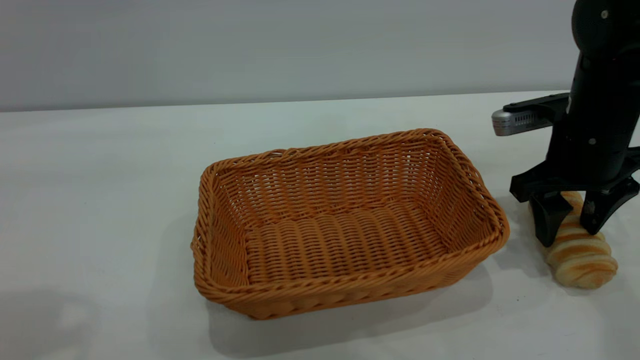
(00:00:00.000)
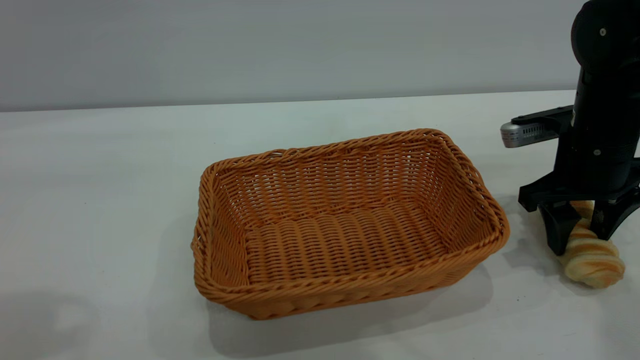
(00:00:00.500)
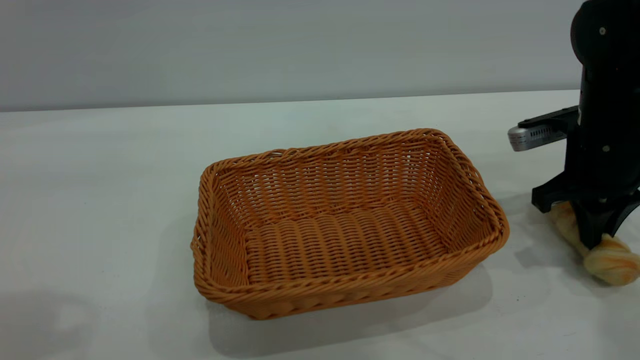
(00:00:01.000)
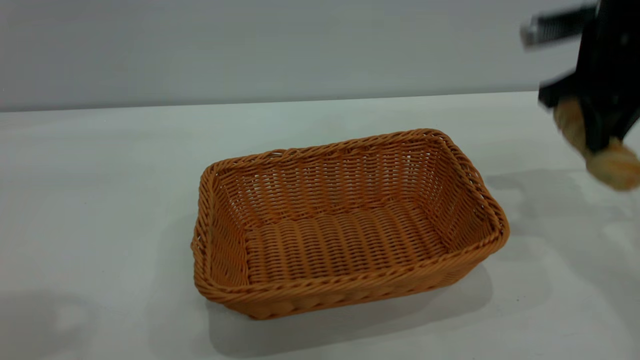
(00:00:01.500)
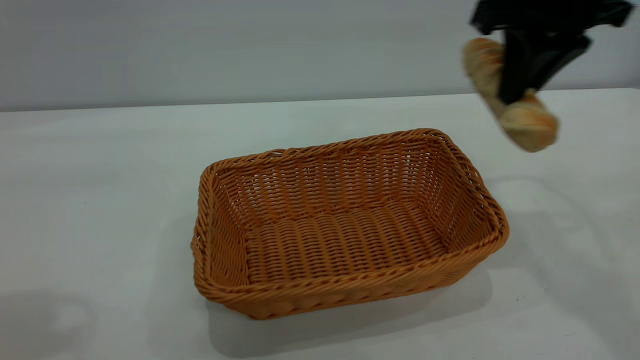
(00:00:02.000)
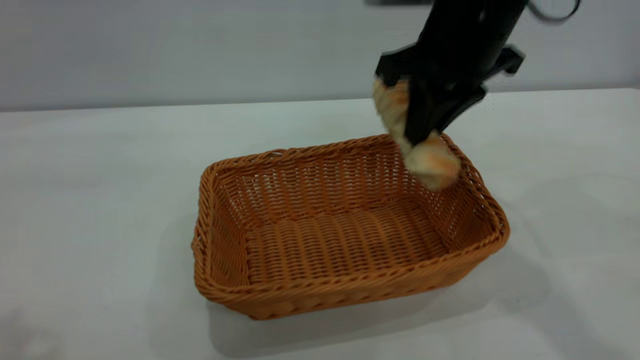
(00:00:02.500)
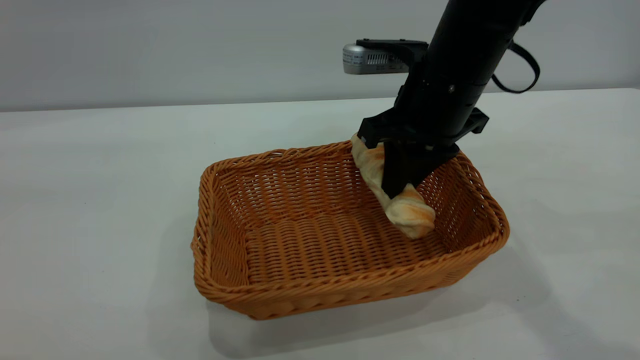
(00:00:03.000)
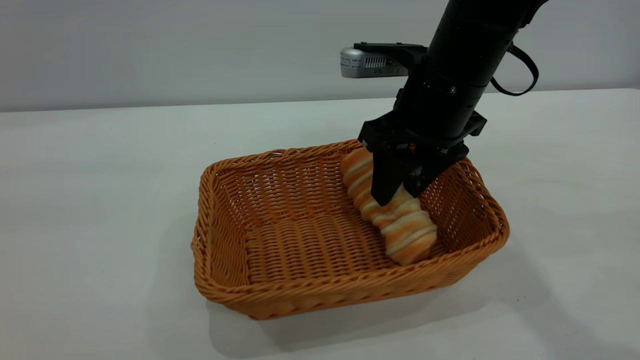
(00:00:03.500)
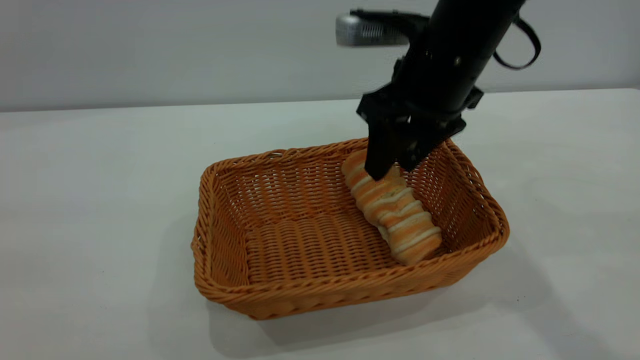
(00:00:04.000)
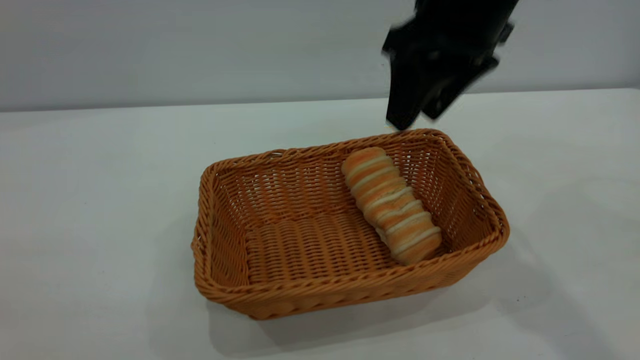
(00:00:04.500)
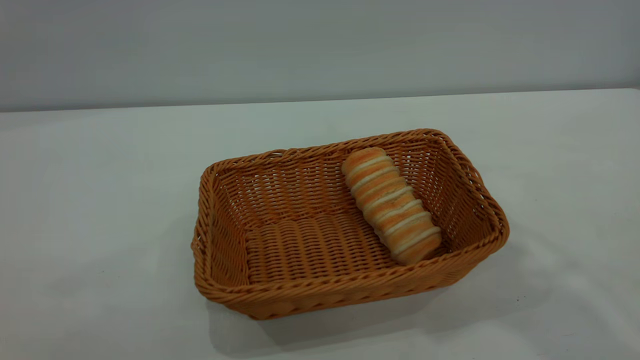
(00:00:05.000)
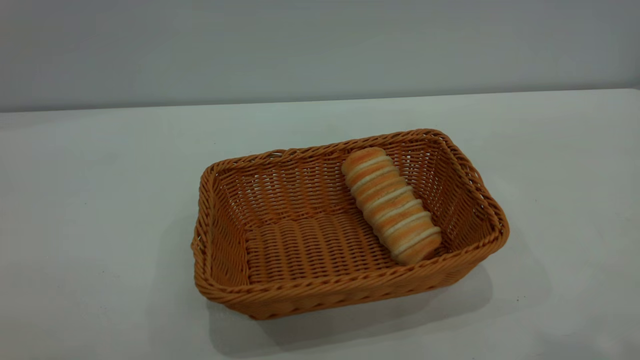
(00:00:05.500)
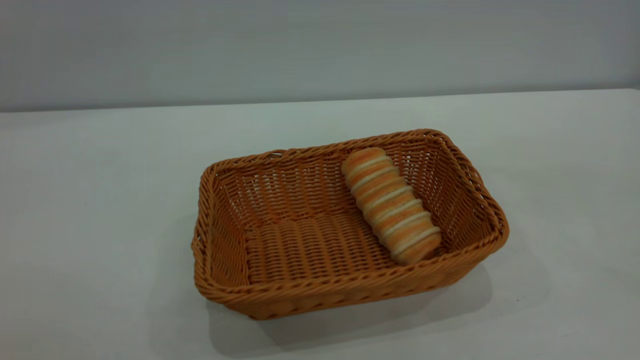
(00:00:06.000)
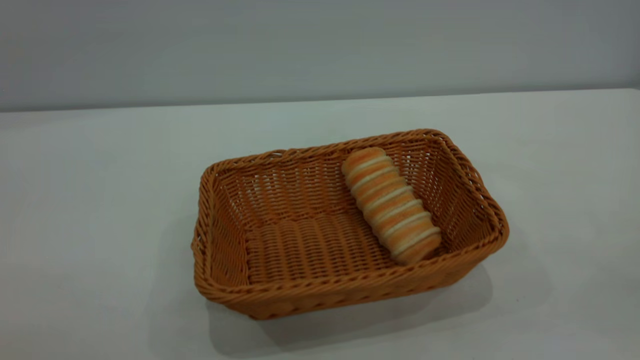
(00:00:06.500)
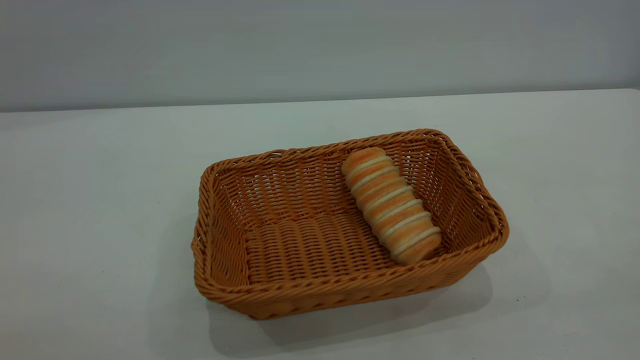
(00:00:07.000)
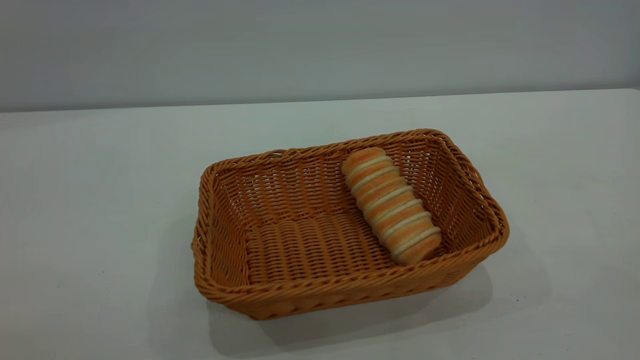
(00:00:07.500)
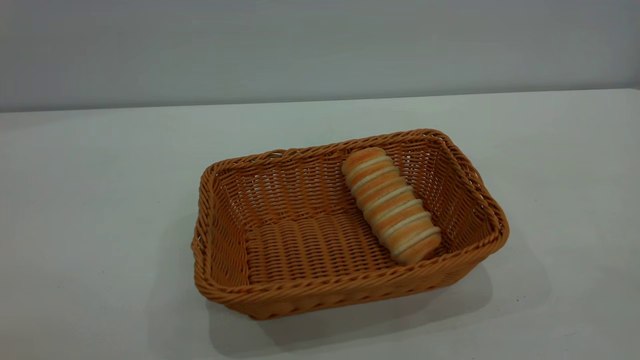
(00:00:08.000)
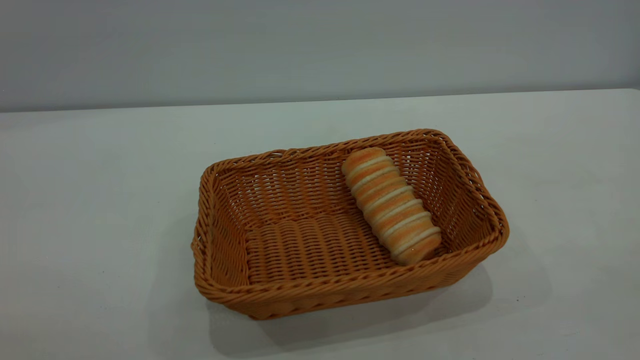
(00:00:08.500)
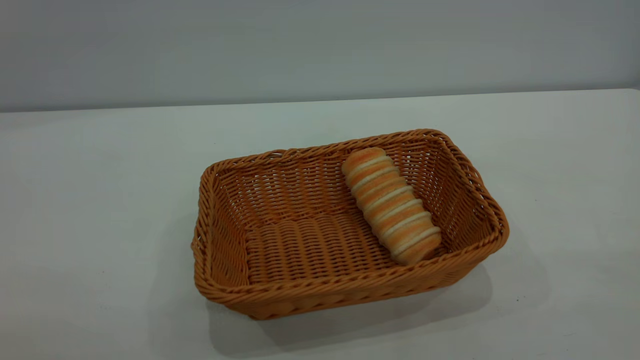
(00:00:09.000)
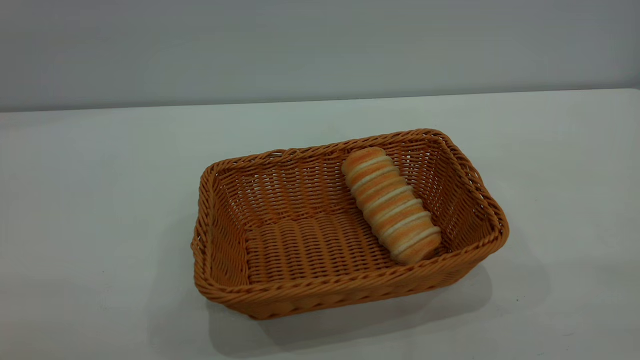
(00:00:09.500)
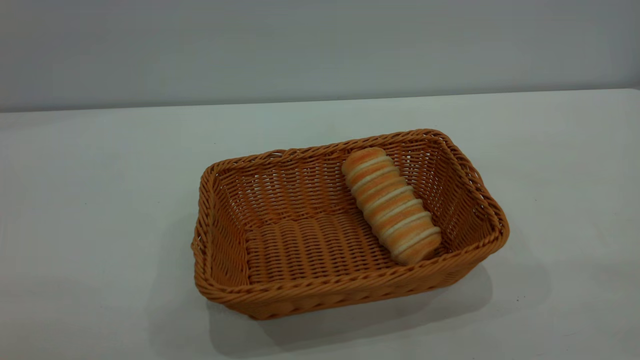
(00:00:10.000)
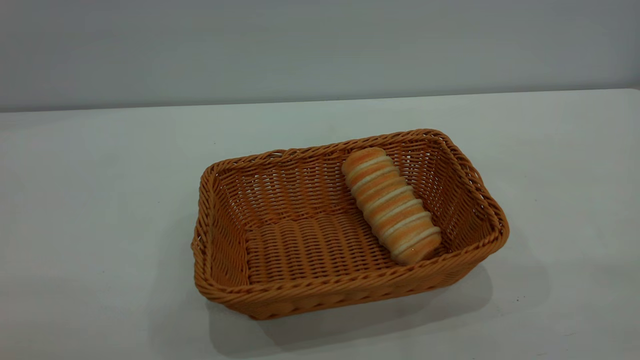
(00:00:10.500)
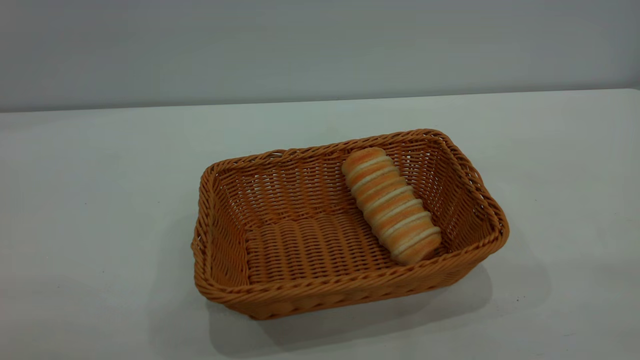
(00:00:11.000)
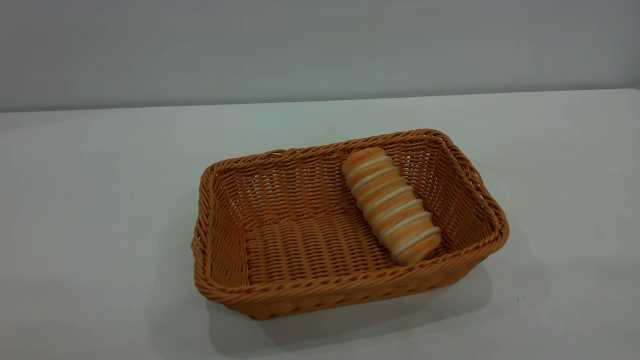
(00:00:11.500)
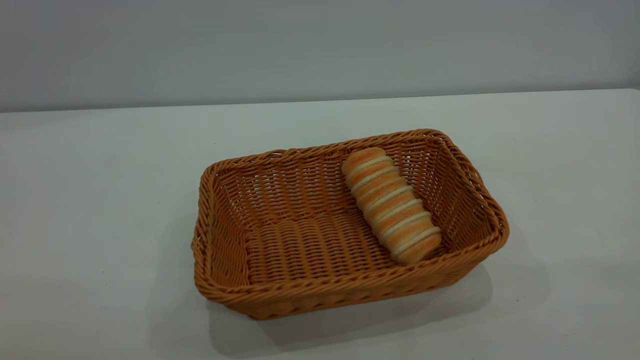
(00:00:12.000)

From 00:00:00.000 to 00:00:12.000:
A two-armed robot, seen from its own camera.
Task of the whole recording: One hand grasps the yellow basket and places it in the middle of the table, while the other hand picks up the long bread and puts it into the yellow basket.
Step, from 00:00:02.000 to 00:00:04.500: place the bread into the basket.
From 00:00:00.000 to 00:00:02.000: The right gripper shifts roughly 15 cm upward and to the left, and closes its fingers.
From 00:00:02.000 to 00:00:04.000: The right gripper goes roughly 10 cm to the left and downward, and opens up. The left gripper travels backward by approximately 15 cm.
From 00:00:04.000 to 00:00:06.000: The right gripper is displaced backward, upward and to the right by some 50 cm. Meanwhile the left gripper goes some 5 cm downward.
From 00:00:10.000 to 00:00:12.000: Both grippers stay put.
